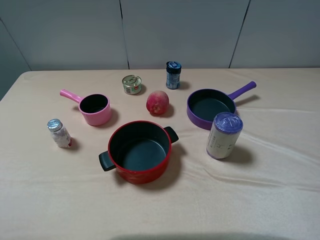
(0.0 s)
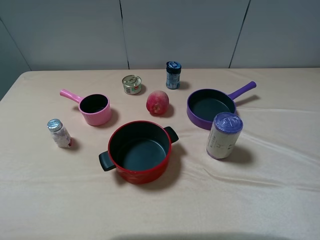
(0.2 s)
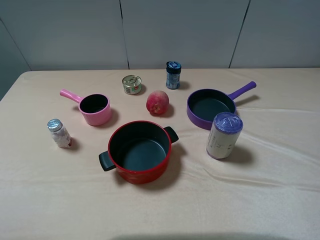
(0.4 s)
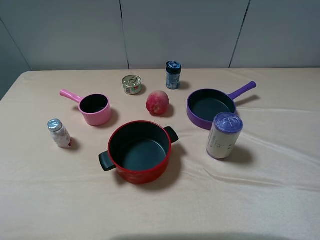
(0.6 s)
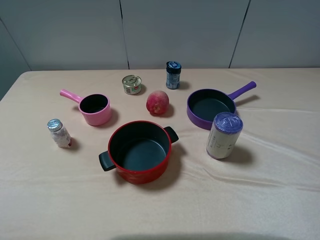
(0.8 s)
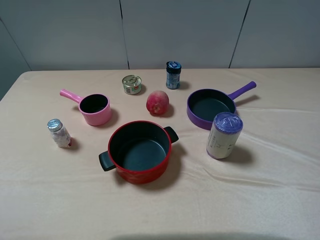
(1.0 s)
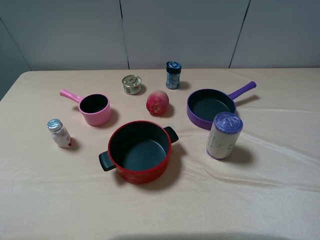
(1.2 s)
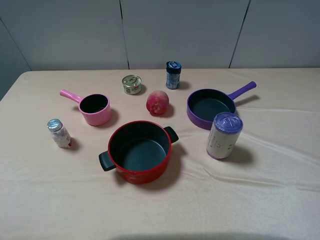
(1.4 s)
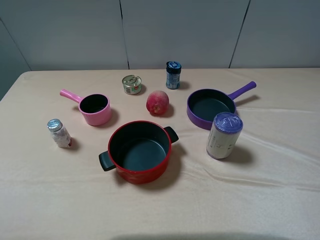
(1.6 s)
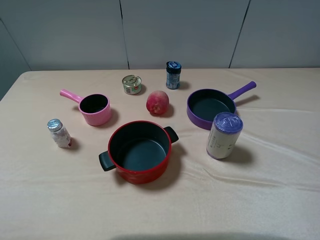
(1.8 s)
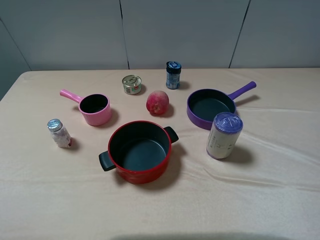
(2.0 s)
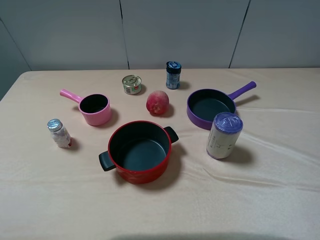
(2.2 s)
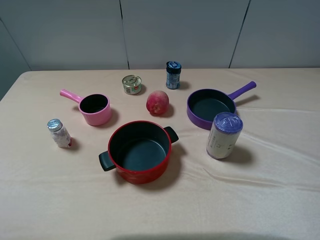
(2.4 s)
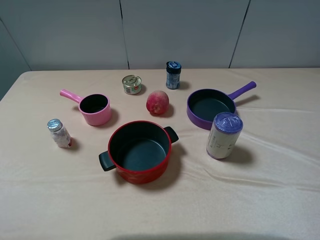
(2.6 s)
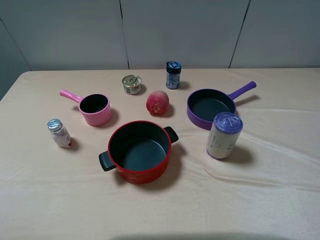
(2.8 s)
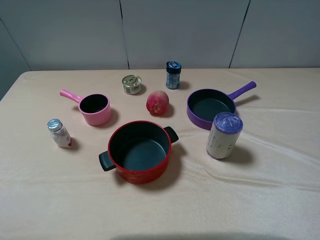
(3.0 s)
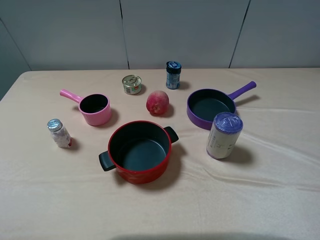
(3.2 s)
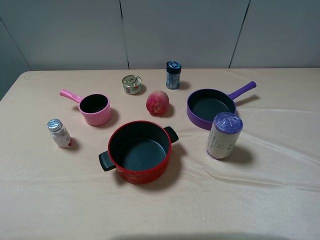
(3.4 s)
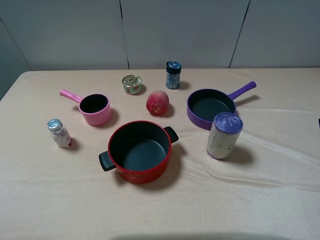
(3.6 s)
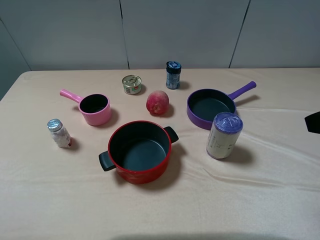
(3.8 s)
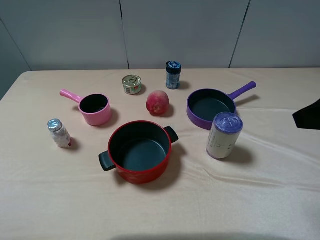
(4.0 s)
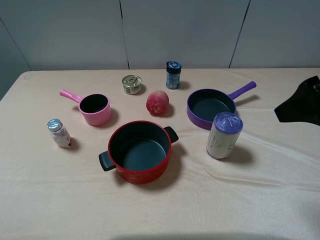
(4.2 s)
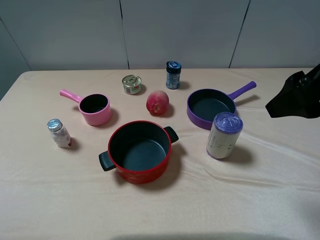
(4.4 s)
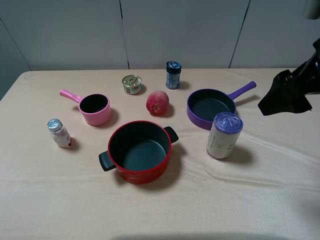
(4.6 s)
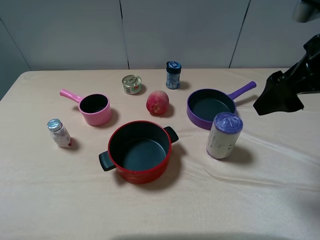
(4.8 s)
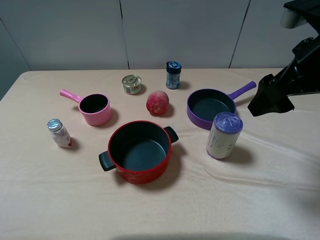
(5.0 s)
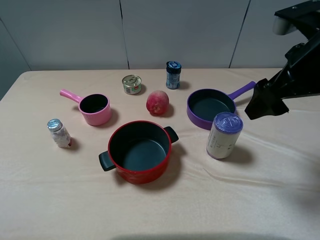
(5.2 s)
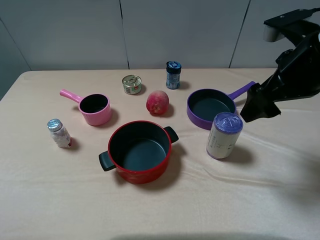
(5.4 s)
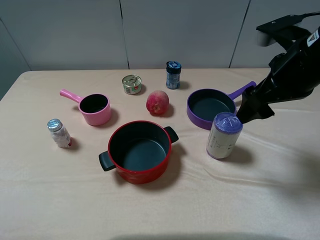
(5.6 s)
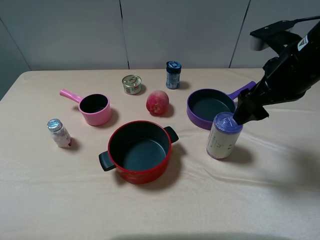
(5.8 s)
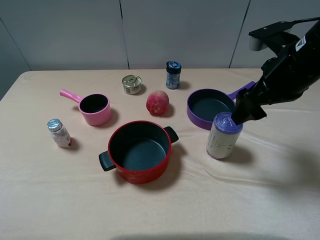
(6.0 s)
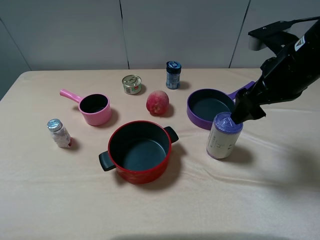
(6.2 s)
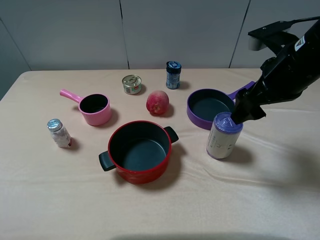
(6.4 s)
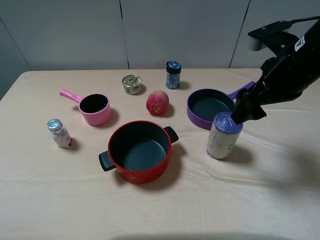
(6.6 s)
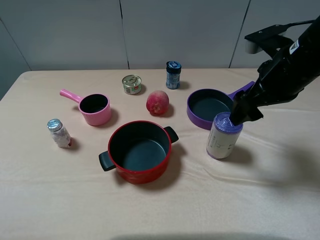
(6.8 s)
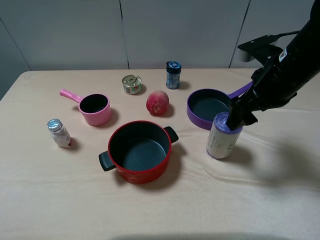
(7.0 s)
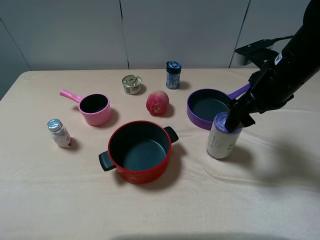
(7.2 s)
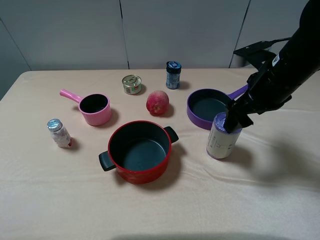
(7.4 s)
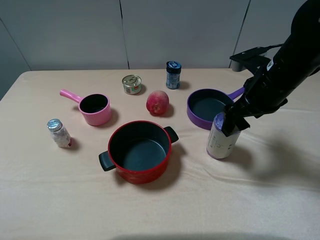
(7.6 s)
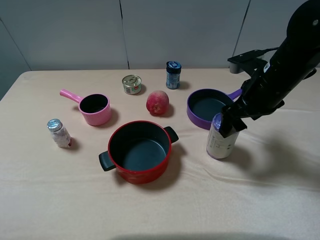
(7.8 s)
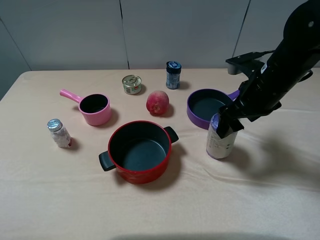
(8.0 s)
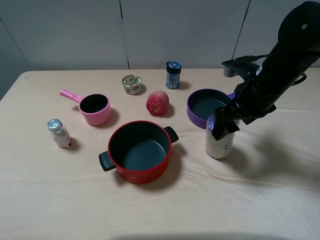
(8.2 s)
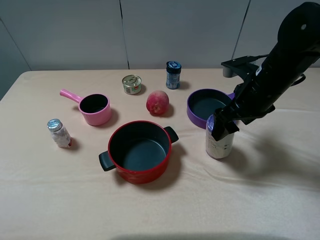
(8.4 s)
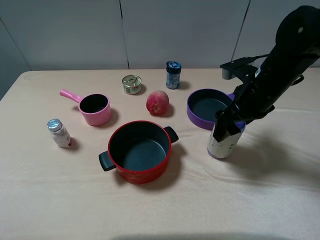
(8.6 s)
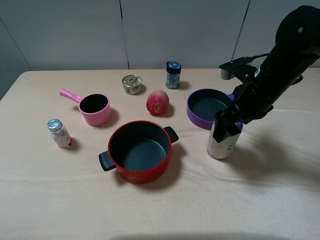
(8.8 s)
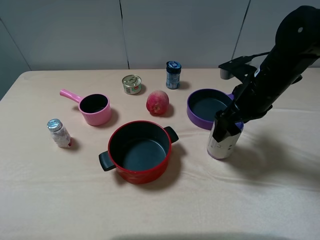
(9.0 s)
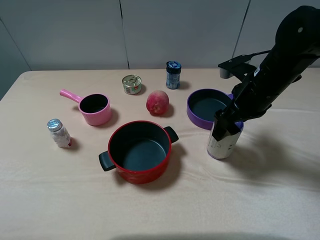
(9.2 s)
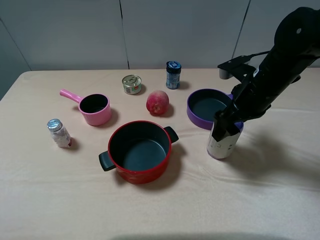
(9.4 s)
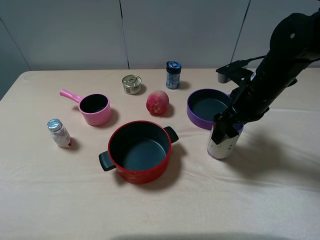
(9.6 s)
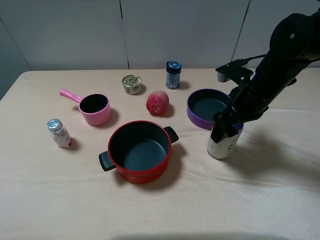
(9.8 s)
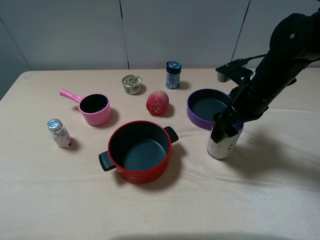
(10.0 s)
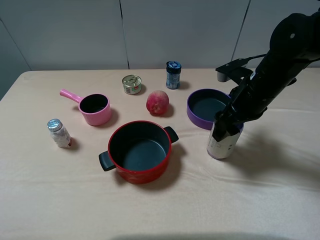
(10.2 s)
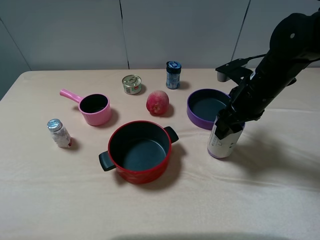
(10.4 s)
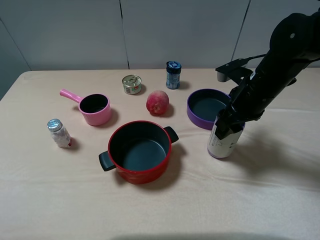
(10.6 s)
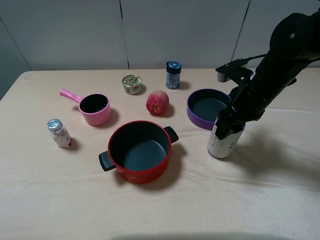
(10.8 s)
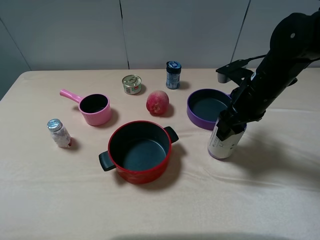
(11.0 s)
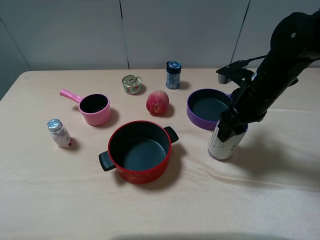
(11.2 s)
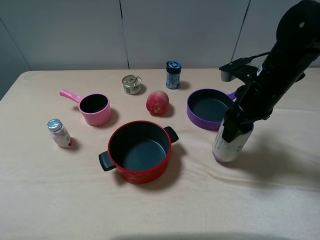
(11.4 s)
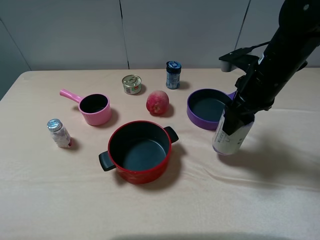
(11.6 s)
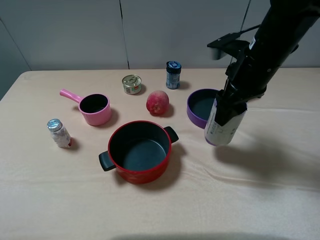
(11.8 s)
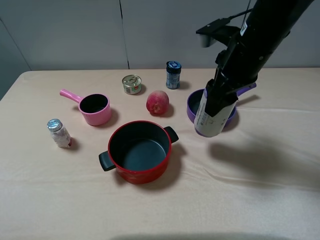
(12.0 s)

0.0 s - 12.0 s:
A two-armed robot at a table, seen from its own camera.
Task of the whole recording: pick up an item with a gripper and place it in a random container on the table.
Step, 0.0 s - 10.8 s: Grasp the blue garbage bag with the right gripper.
0.0 s - 1.6 s: Both grippers stay put.
3.0 s - 4.4 s: The right gripper is displaced forward and to the left by some 10 cm.
4.4 s - 6.0 s: The right gripper heads forward and downward, covering some 10 cm.
6.0 s - 7.6 s: The right gripper moves approximately 5 cm.
7.6 s - 9.0 s: The grippers stay close to where they were, moving slightly.
9.0 s - 10.4 s: The right gripper closes its fingers.
10.4 s - 12.0 s: The right gripper goes approximately 10 cm upward and to the left.

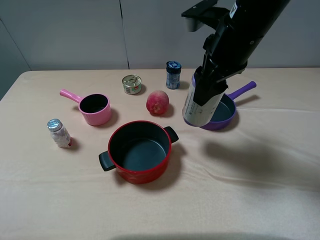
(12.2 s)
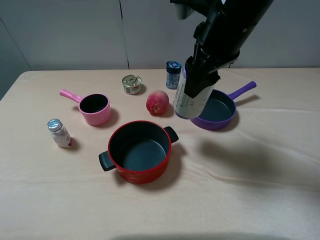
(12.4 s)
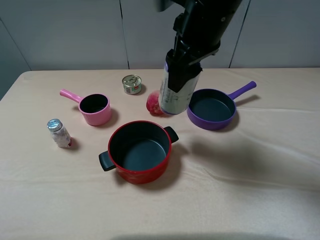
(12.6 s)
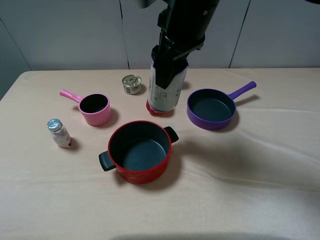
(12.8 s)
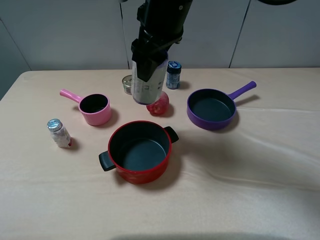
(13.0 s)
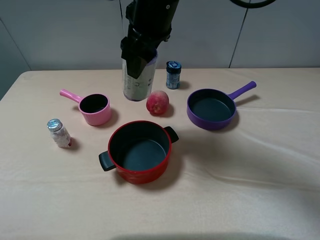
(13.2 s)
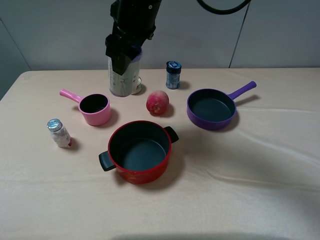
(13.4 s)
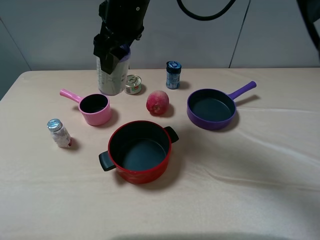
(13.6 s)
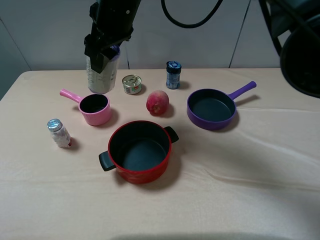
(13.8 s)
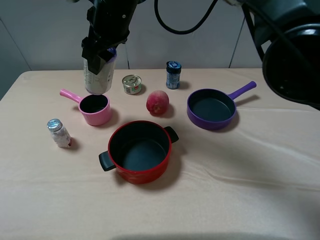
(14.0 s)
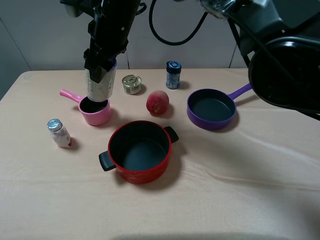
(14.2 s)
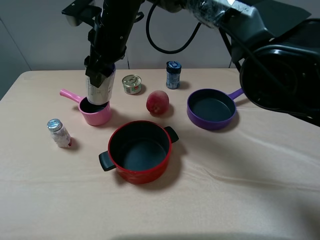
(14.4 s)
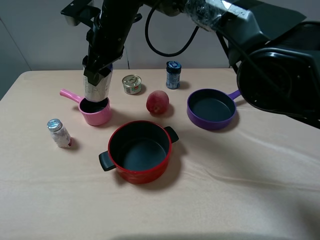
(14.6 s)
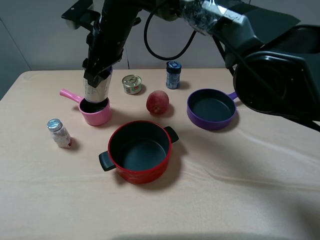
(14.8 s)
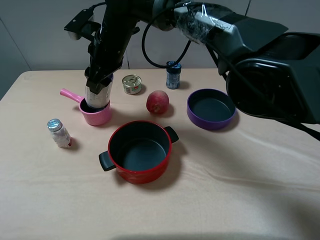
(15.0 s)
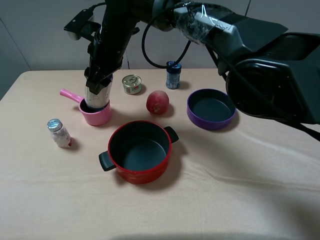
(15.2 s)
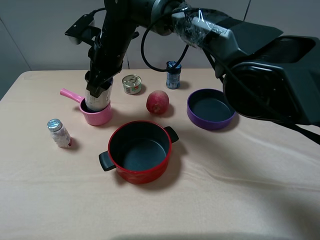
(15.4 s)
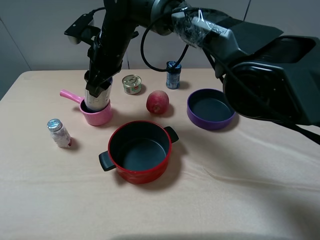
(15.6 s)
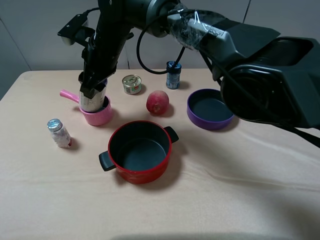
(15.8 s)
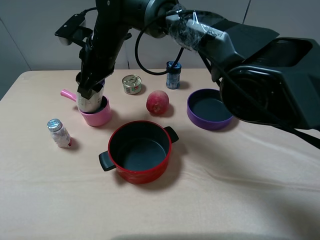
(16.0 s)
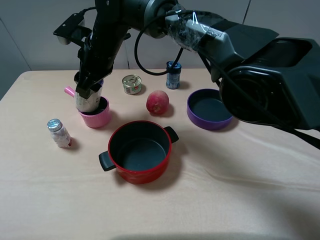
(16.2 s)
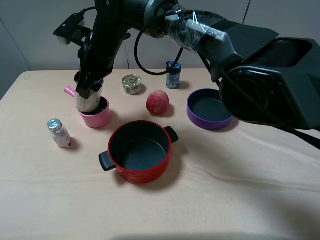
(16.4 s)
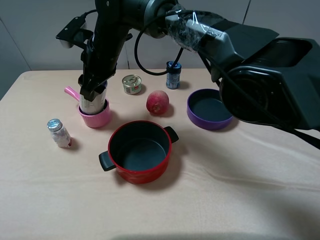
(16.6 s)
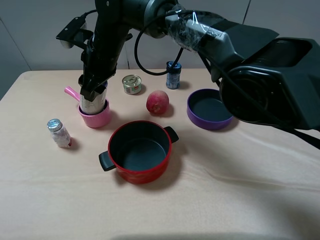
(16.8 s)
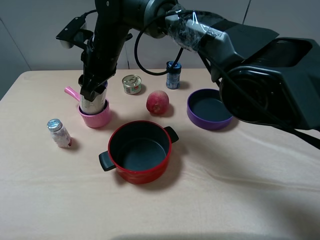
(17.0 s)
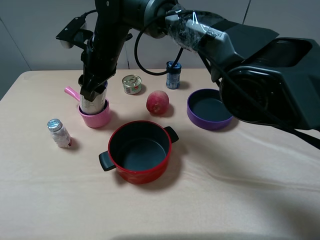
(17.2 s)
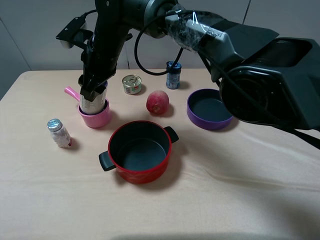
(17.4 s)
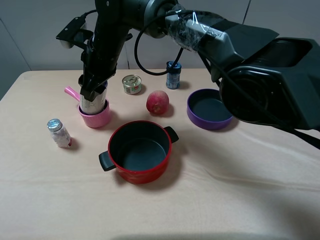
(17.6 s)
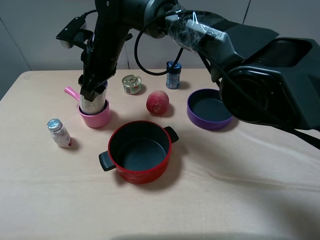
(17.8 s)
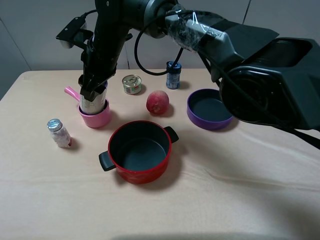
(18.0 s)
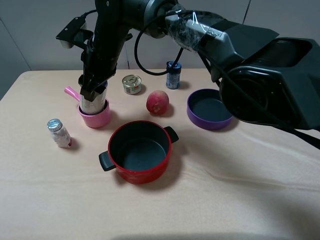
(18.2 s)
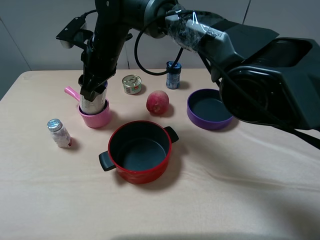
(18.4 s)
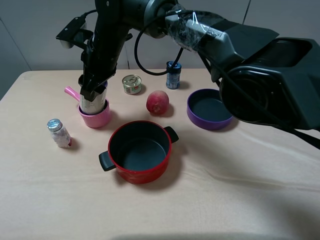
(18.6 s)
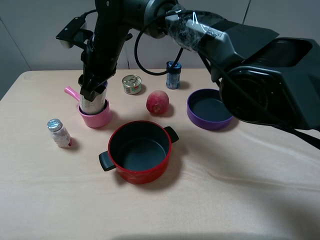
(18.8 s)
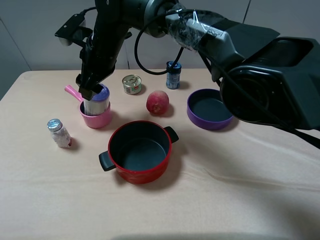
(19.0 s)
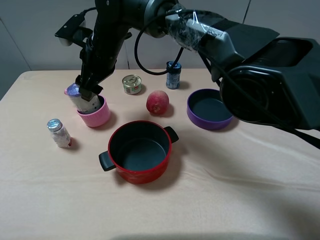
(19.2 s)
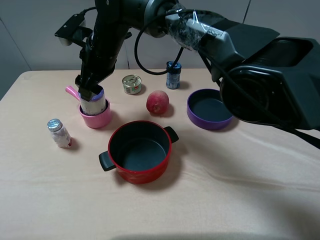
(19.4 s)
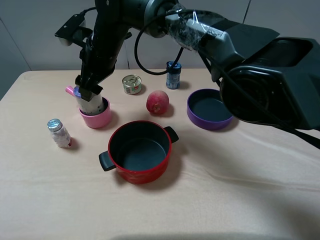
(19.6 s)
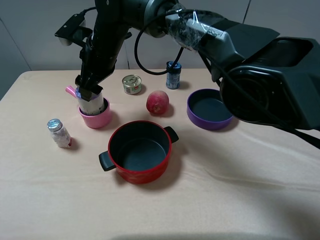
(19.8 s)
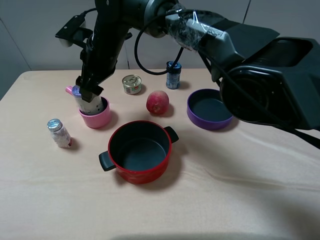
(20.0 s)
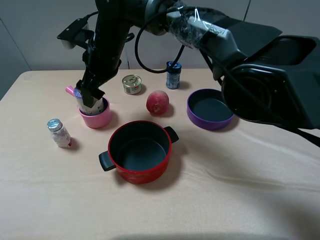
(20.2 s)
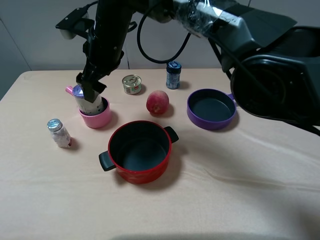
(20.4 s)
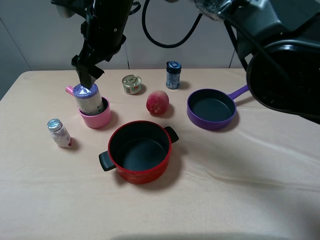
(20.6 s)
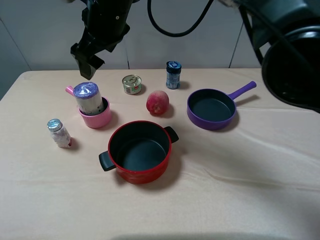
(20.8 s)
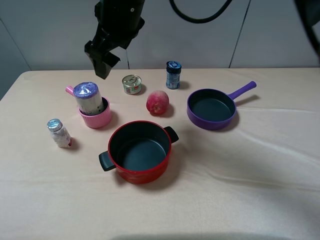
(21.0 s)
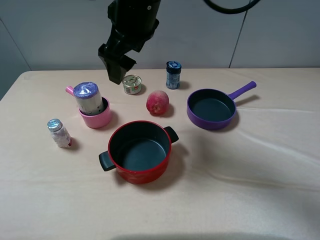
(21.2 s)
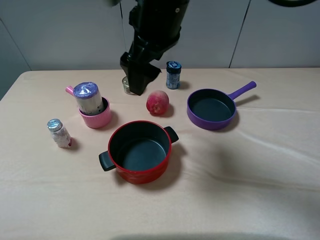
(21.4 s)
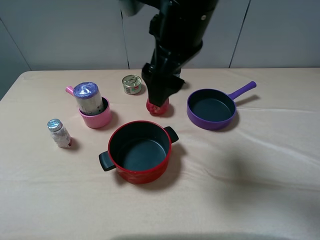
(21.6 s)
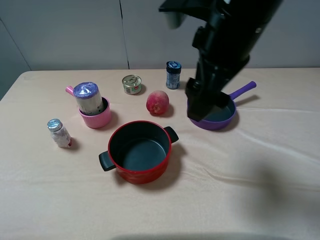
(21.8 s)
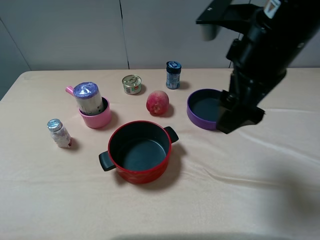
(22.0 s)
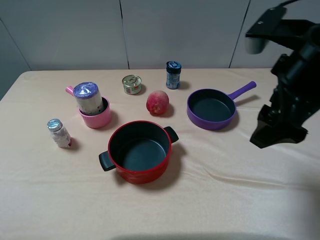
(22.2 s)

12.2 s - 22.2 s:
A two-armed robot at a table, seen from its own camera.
Task of the whole recording: pick up an item with a gripper and place it in a random container on the table.
Step, 12.2 s - 20.0 s: Place the blue garbage bag into the pink pot with the right gripper.
12.2 s - 13.6 s: The right gripper goes approximately 15 cm to the left.
13.6 s - 15.0 s: The right gripper moves downward, about 10 cm.
15.0 s - 16.4 s: The grippers stay close to where they were, moving slightly.
16.4 s - 18.0 s: Both grippers stay put.
18.0 s - 19.4 s: The right gripper opens its fingers.
19.4 s - 20.8 s: The right gripper shifts some 10 cm upward, and opens its fingers.
20.8 s - 22.2 s: The right gripper shifts approximately 30 cm to the right and backward.
